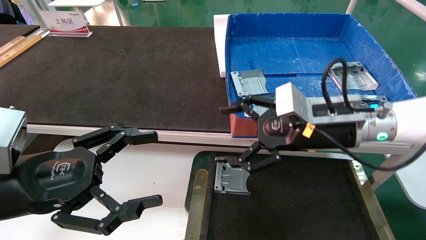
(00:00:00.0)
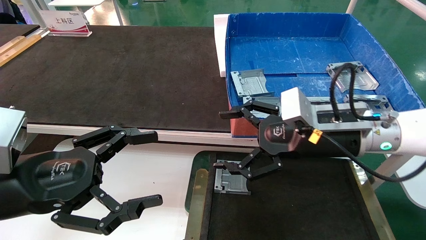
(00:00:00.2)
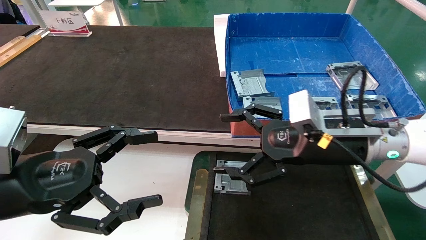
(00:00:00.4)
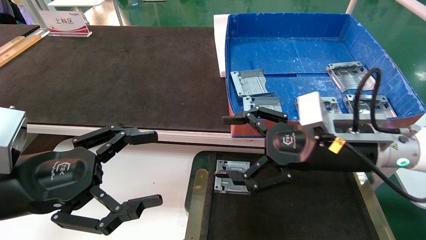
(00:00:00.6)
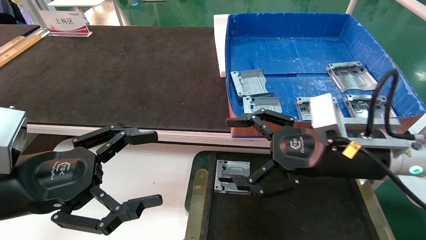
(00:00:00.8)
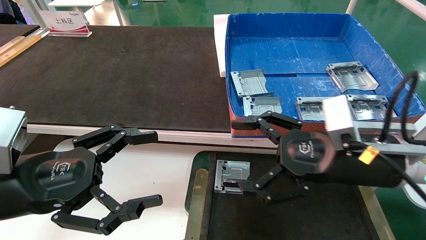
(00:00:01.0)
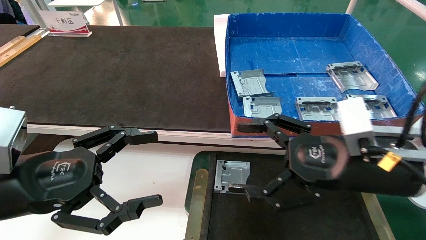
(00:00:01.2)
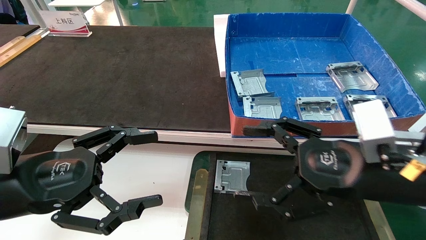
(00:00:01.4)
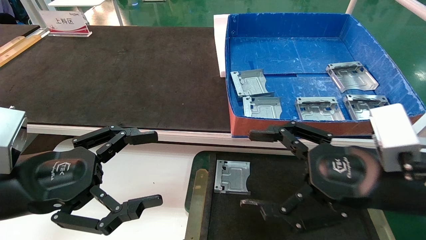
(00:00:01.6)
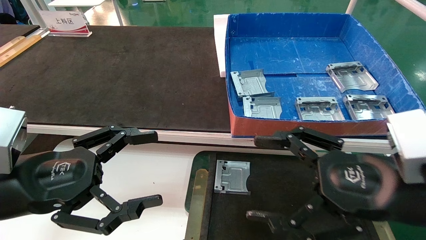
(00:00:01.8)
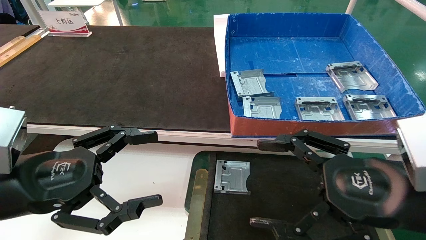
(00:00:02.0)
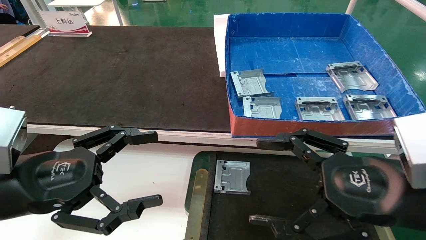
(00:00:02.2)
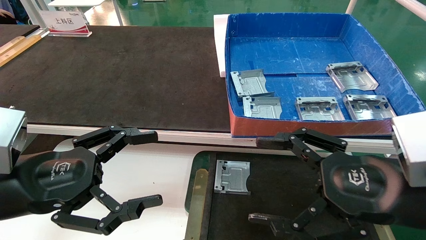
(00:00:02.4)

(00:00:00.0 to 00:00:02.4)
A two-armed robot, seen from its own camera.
Task of the whole recording: pick up parts and place them into a black container.
00:00:00.0 - 00:00:01.2: The right gripper travels backward by approximately 10 cm.
00:00:01.2 - 00:00:02.4: The right gripper heads backward, covering some 5 cm.
